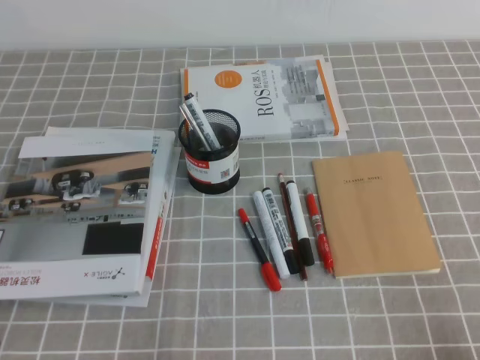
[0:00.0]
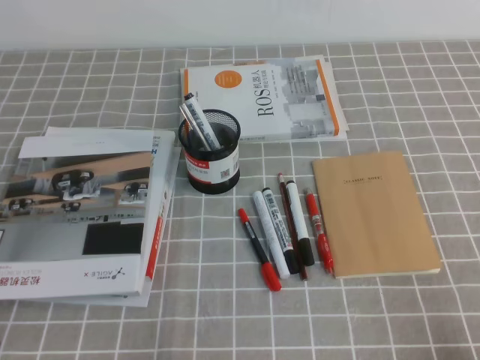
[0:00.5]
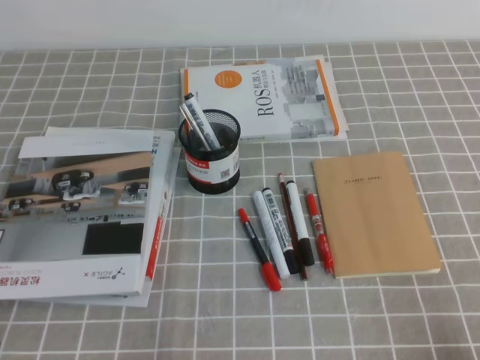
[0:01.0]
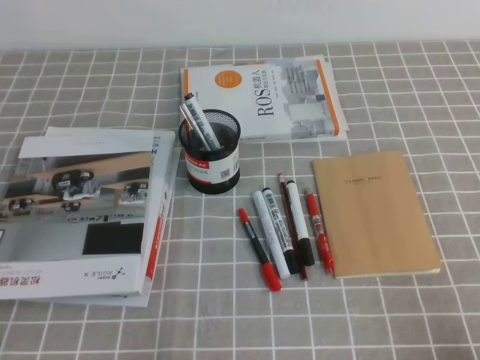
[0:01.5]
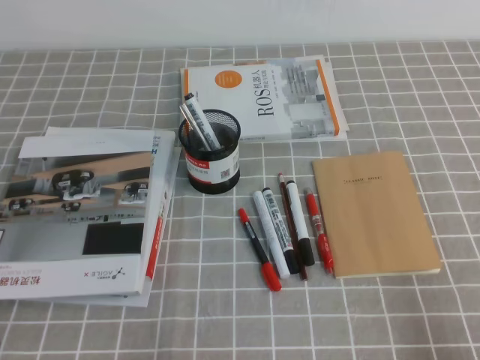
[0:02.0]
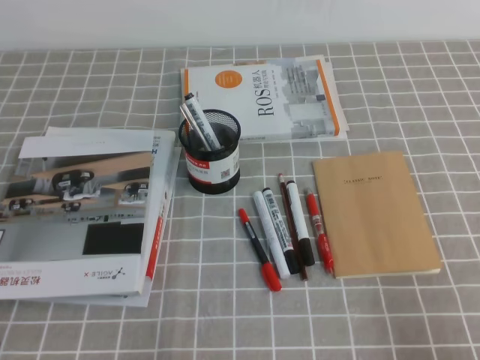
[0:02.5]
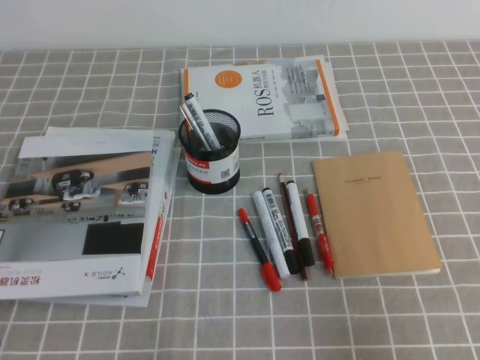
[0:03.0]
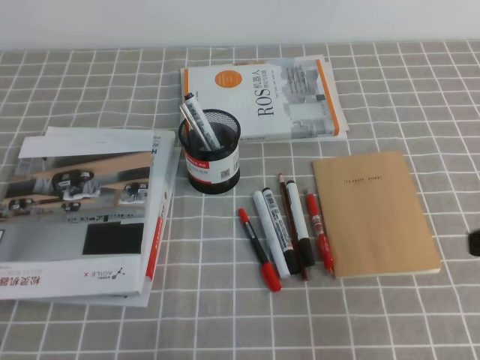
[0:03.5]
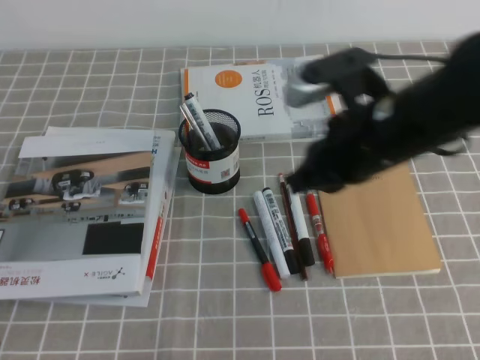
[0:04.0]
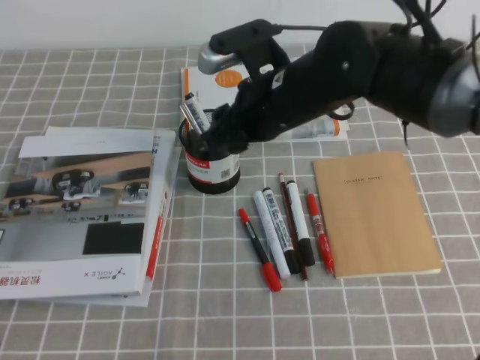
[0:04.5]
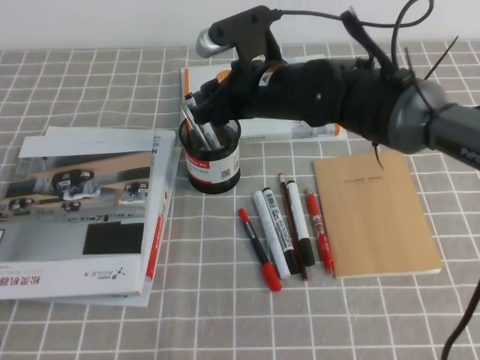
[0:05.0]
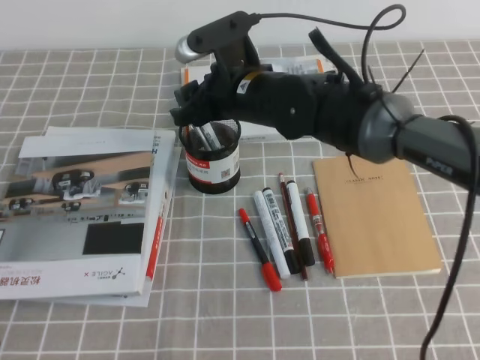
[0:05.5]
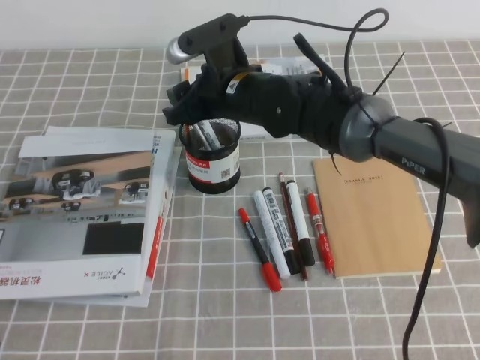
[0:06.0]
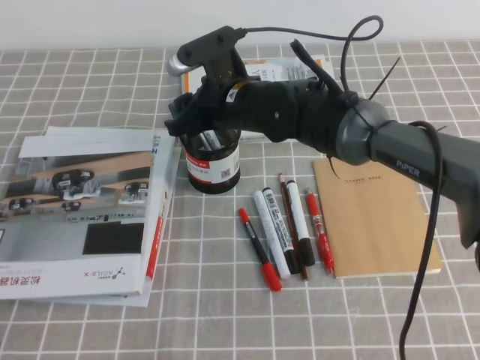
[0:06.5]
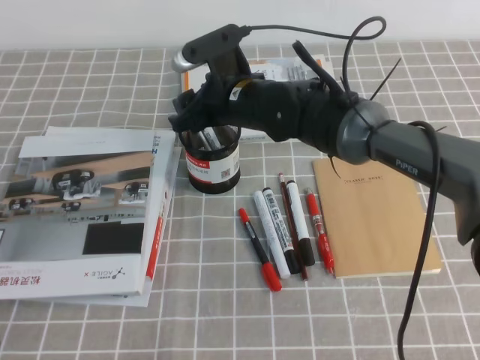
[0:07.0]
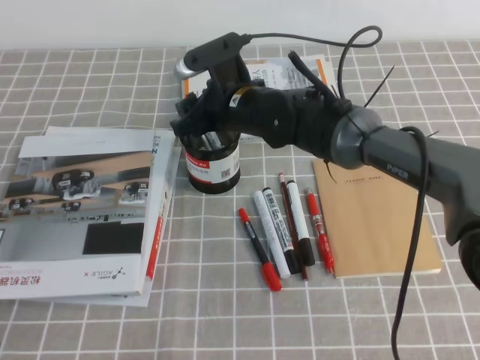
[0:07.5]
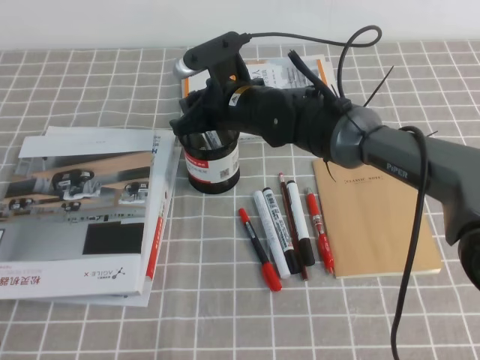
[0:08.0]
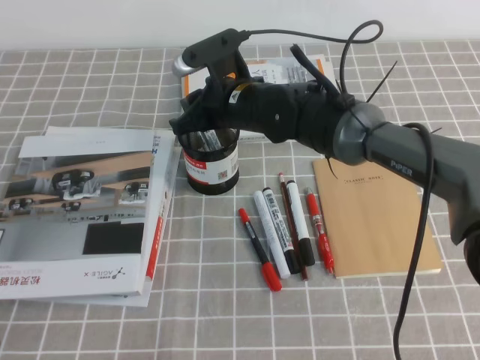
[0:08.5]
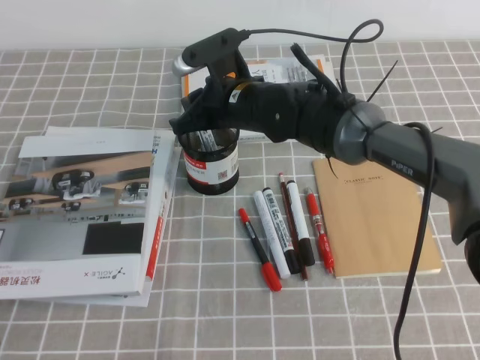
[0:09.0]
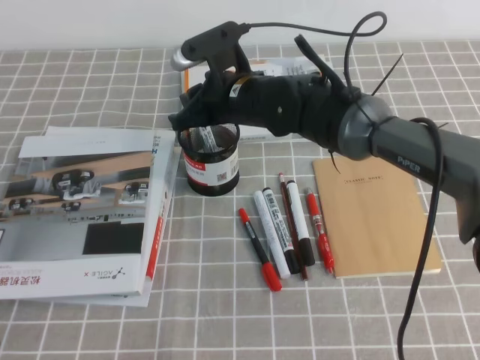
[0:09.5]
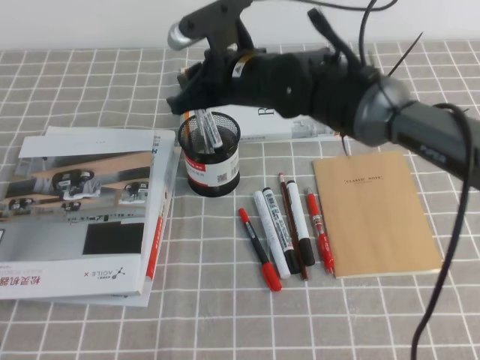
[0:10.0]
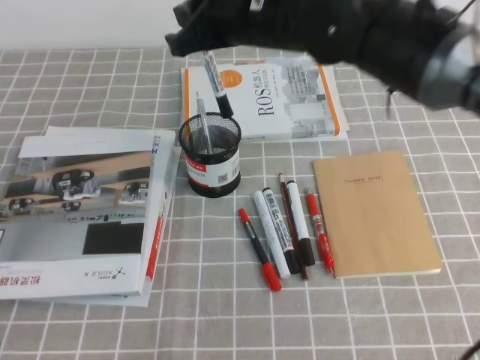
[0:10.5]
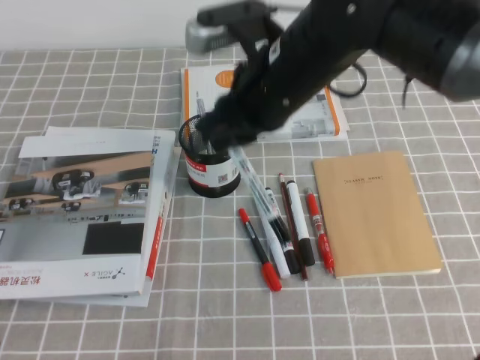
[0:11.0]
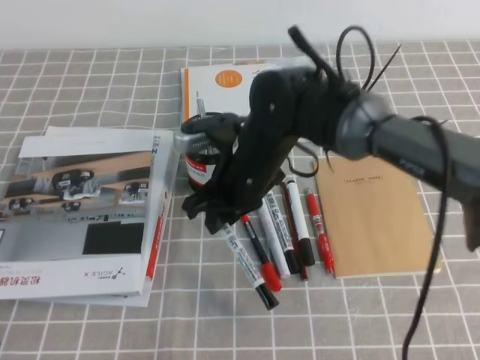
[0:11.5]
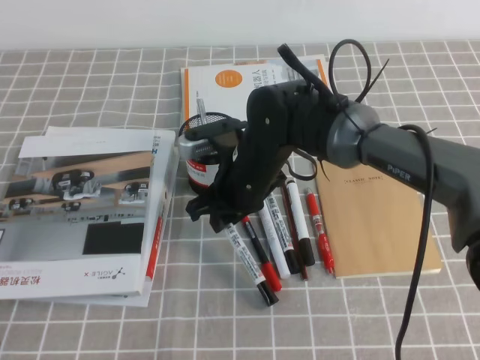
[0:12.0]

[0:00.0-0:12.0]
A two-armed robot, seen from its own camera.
0:02.0 to 0:04.0: The right gripper heads forward, to the left and upward, covering roughly 30 cm.
0:04.0 to 0:06.0: The right gripper goes about 20 cm to the left and forward, and opens up.
0:06.0 to 0:08.0: The right gripper closes.
0:08.0 to 0:10.0: The right gripper goes approximately 5 cm upward.
0:10.0 to 0:12.0: The right gripper goes roughly 10 cm downward.

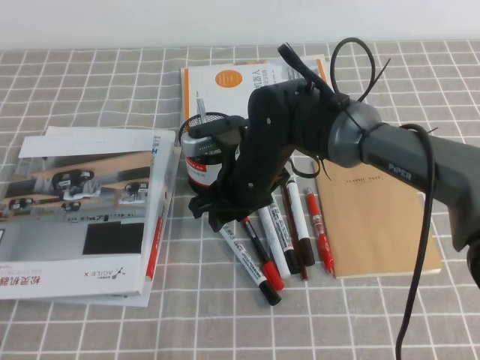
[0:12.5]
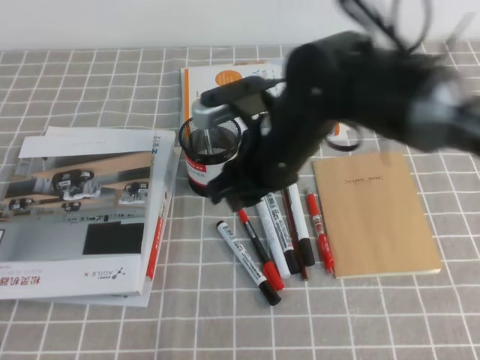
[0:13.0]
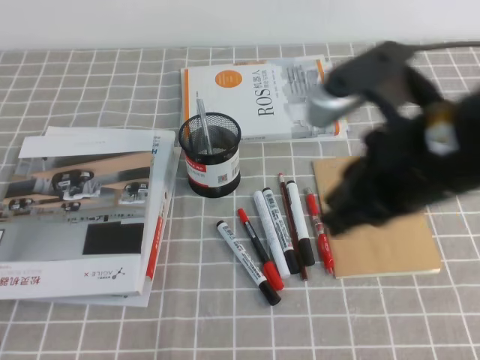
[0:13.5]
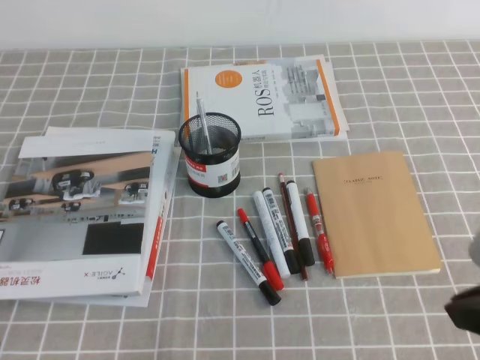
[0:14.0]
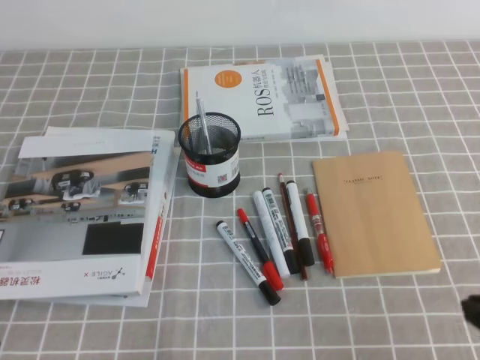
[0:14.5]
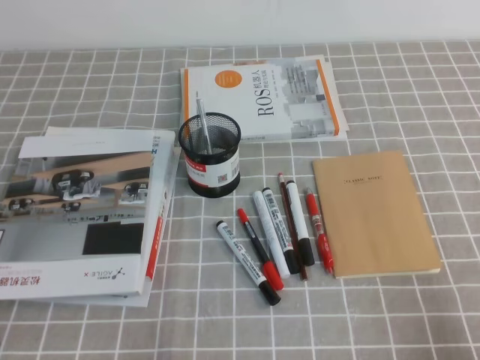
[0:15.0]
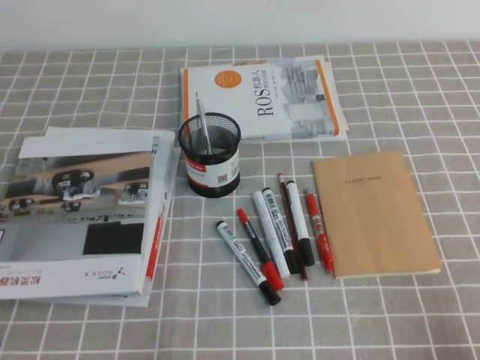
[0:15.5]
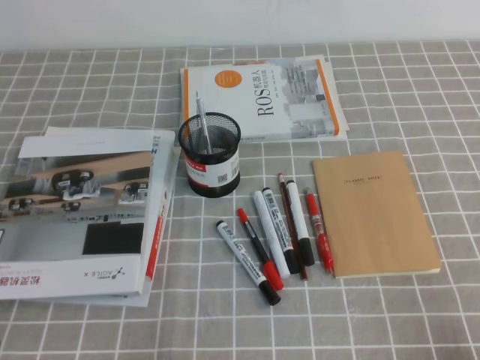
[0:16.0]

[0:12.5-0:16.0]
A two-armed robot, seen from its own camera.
Step, 0:12.5 to 0:16.0: Pick up the pen from the pen holder.
0:12.5 to 0:14.5: The right gripper is displaced backward and to the right by roughly 35 cm, and closes its fingers.
0:14.5 to 0:16.0: The right gripper goes approximately 10 cm downward, to the right and backward.
